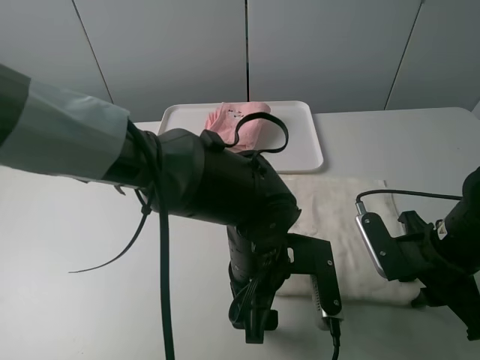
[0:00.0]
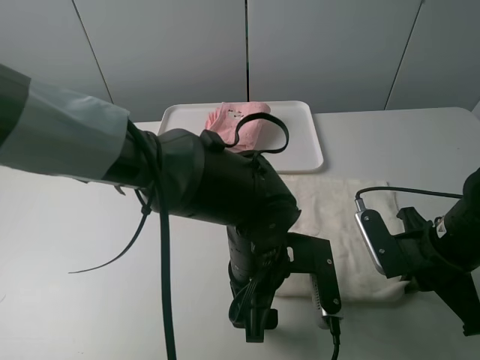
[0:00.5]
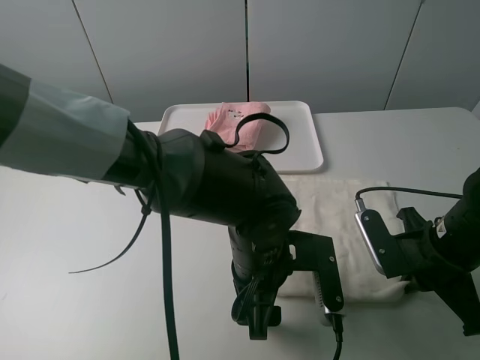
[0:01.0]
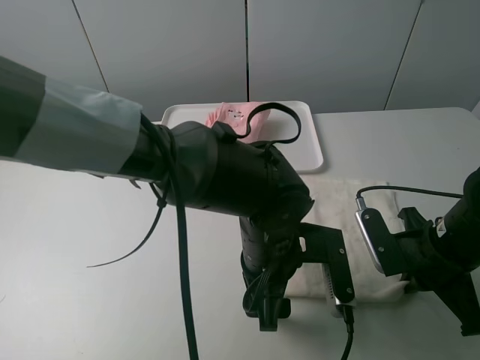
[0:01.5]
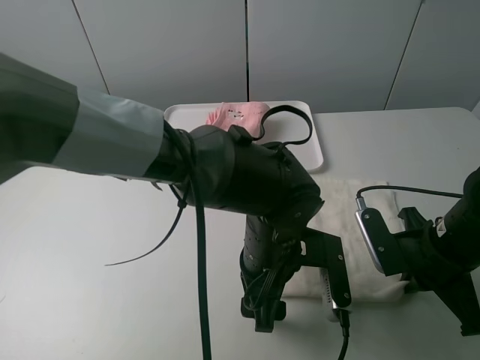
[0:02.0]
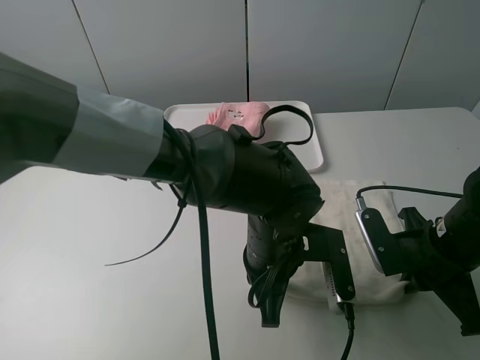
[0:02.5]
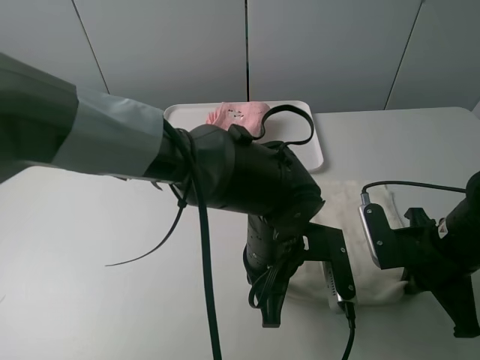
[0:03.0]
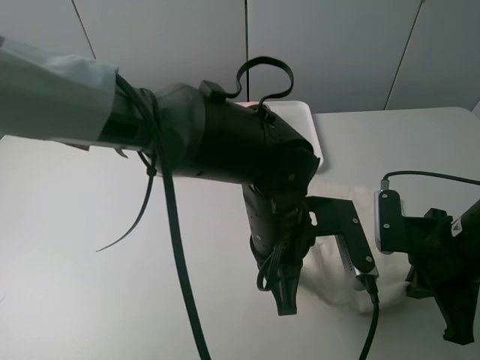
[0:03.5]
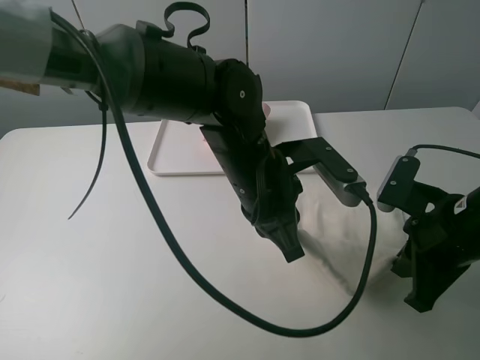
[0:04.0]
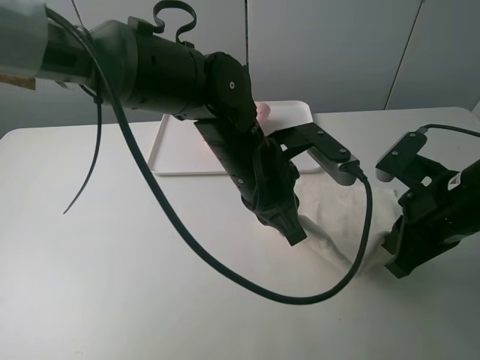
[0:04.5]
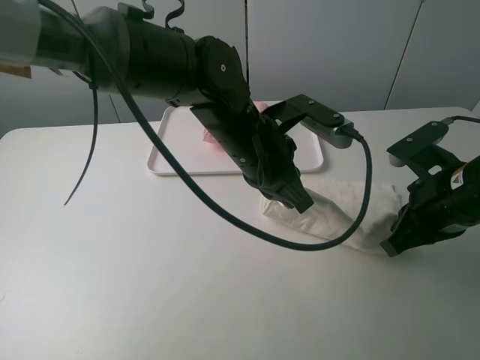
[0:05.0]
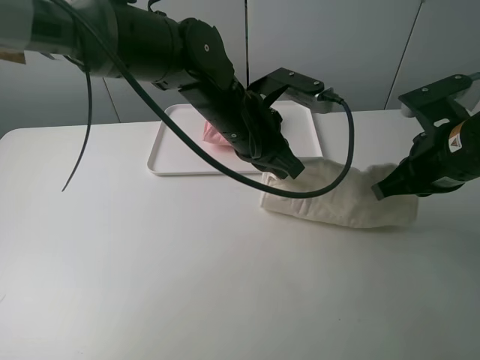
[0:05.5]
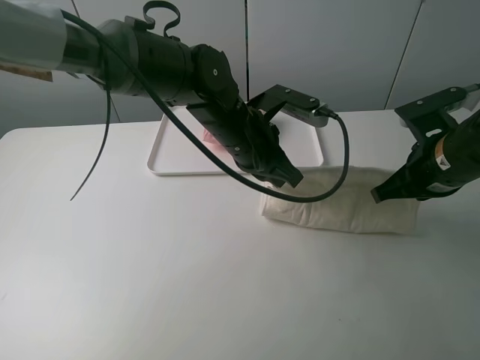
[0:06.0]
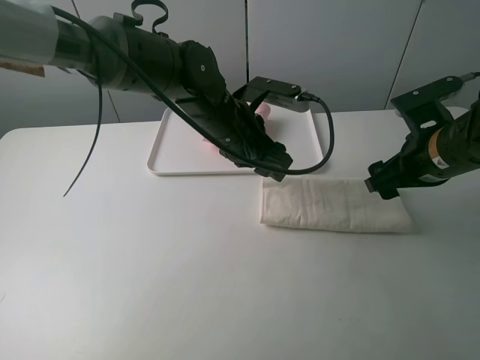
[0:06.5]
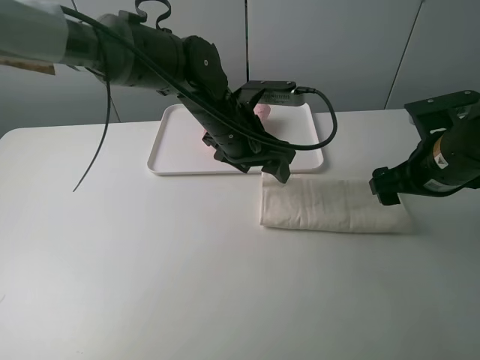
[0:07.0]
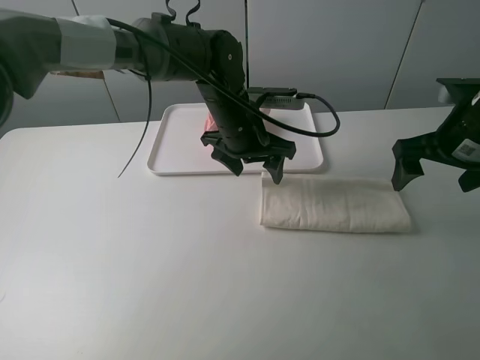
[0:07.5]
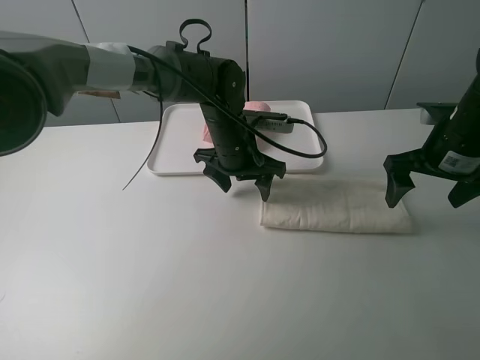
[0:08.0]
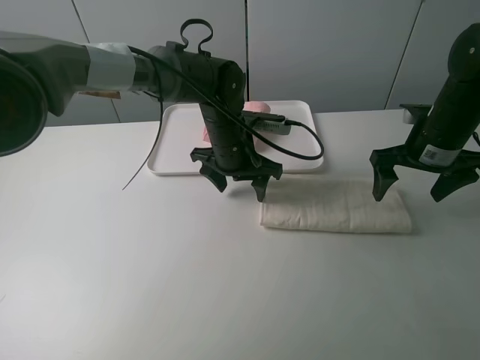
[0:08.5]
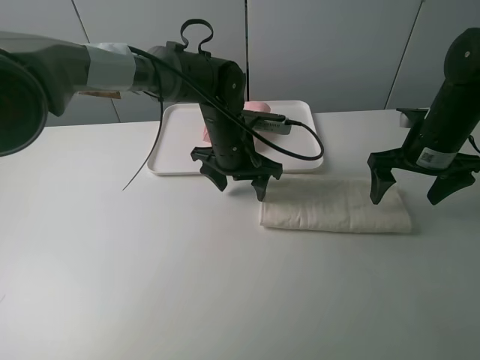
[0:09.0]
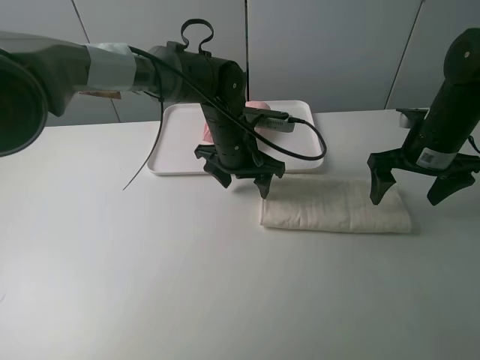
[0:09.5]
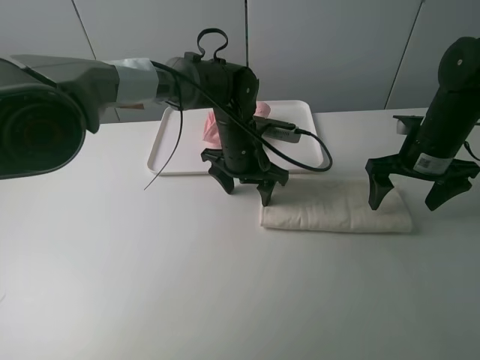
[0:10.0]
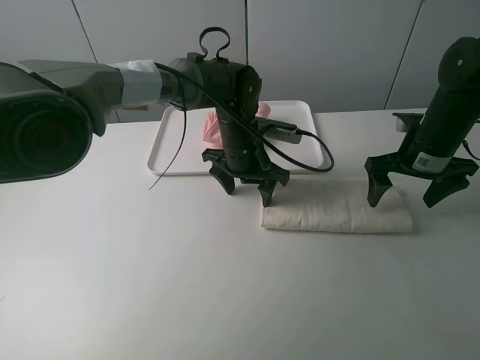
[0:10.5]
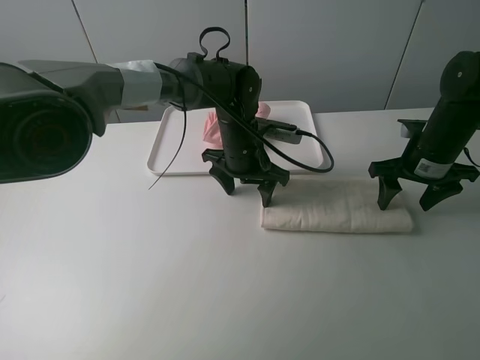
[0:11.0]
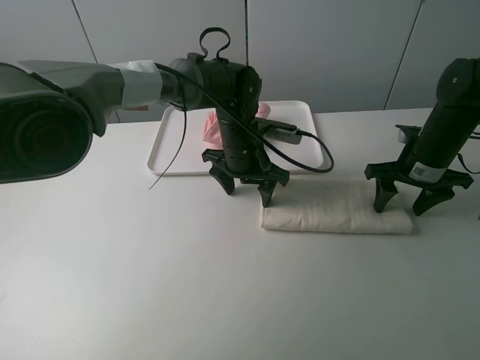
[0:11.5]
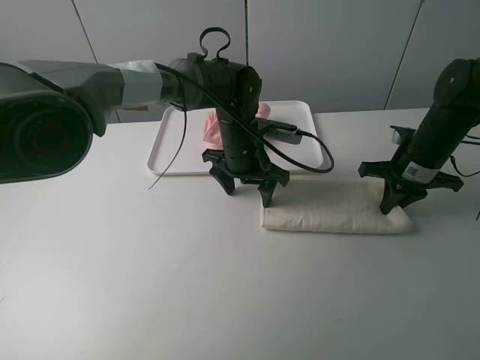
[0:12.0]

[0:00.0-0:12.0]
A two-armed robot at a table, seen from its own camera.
Task of the whole recording: fold one of the towels by two grippers and place it on the tray,then fold another towel by two grippers and place it on the folded towel.
Step, 0:00.0 to 0:02.5: Grasp the white towel with the left gripper.
Step, 0:03.0 to 0:06.5: Fold the white towel upwards with the left gripper.
Step, 0:07.0 to 0:09.0: Press the white towel with the left gripper.
0:00.0 to 0:02.0: There are only small adjustments of the grippers.
0:02.0 to 0:04.0: The left gripper is displaced upward by roughly 5 cm, and closes up.
0:04.0 to 0:06.0: Both grippers travel together forward, roughly 10 cm.
0:06.0 to 0:08.0: The left gripper is displaced forward by some 5 cm, and opens up, while the right gripper ends up roughly 5 cm from where it was, and opens up.
0:08.0 to 0:10.0: The grippers move only a little.
0:10.0 to 0:12.0: The right gripper closes its fingers.

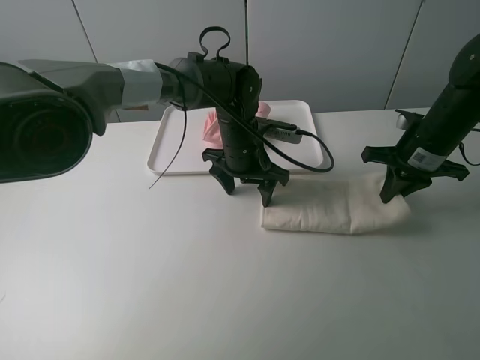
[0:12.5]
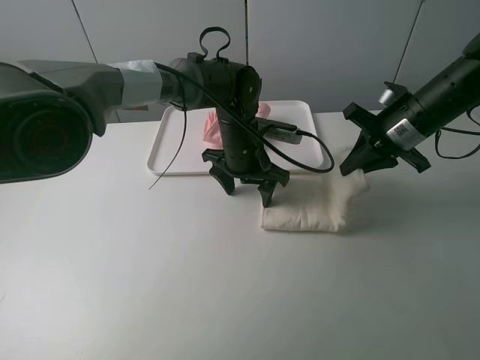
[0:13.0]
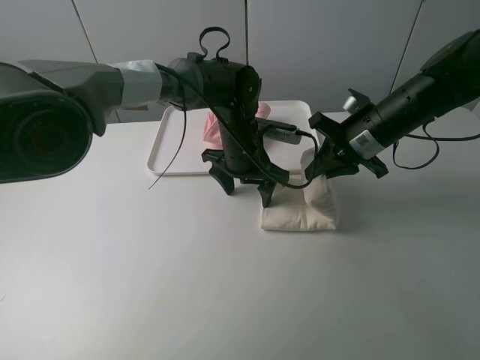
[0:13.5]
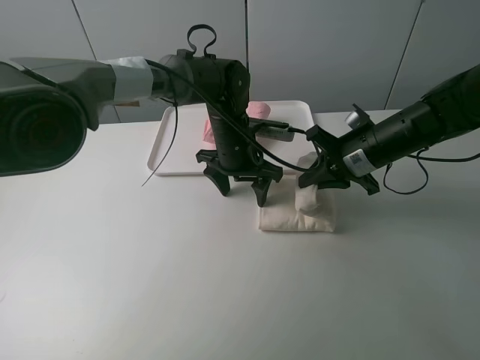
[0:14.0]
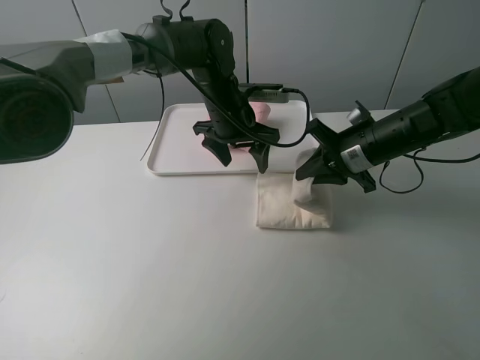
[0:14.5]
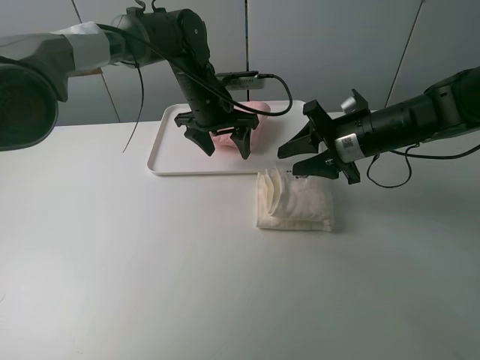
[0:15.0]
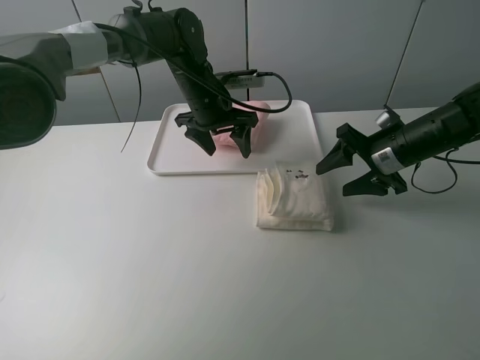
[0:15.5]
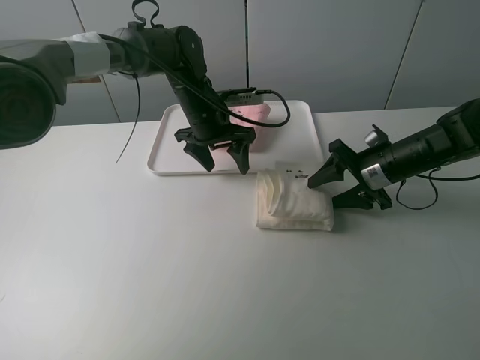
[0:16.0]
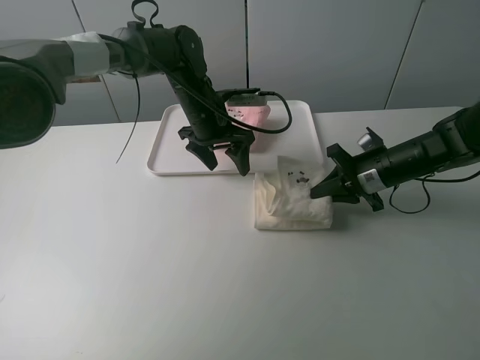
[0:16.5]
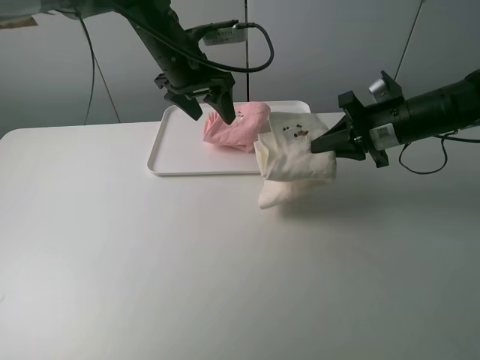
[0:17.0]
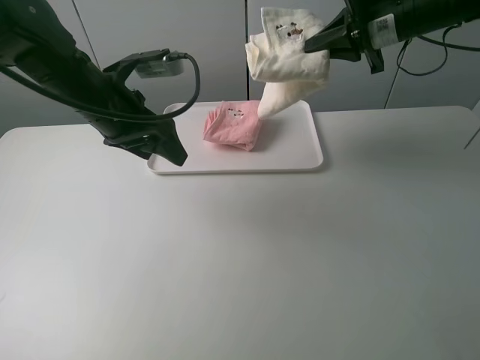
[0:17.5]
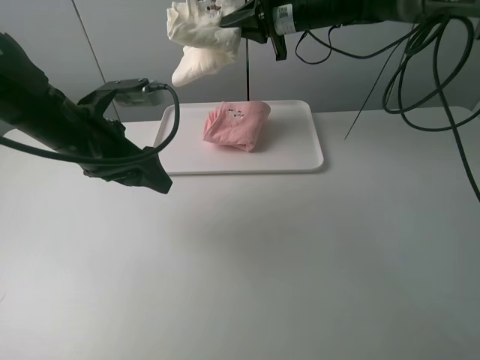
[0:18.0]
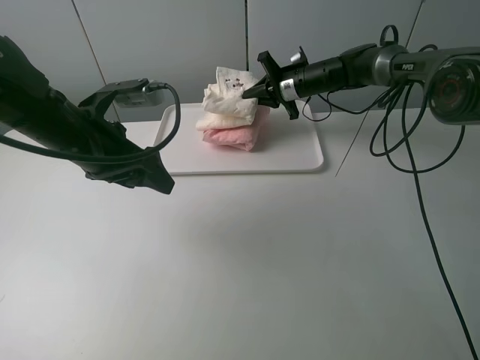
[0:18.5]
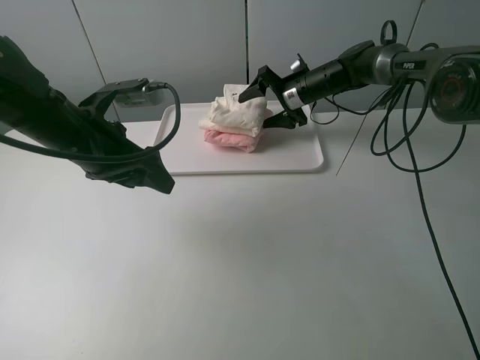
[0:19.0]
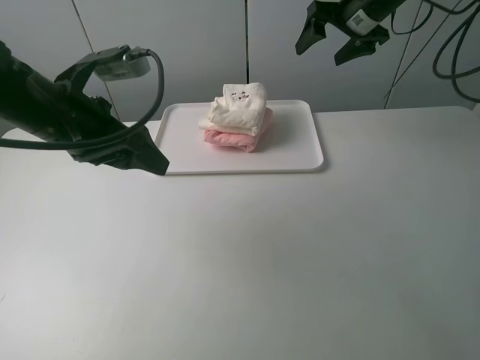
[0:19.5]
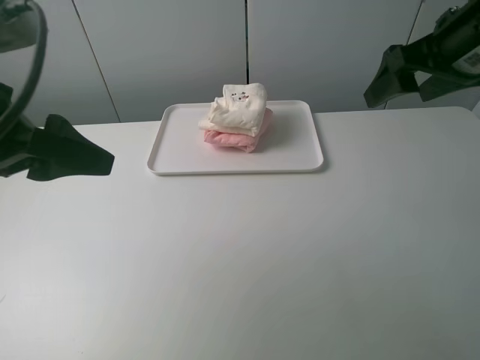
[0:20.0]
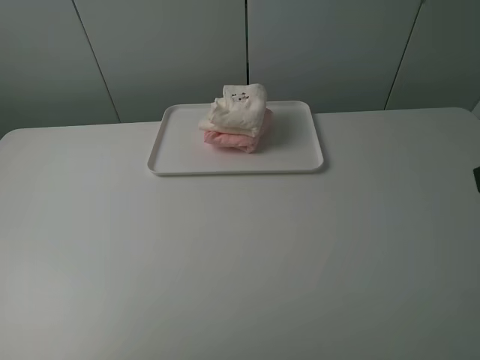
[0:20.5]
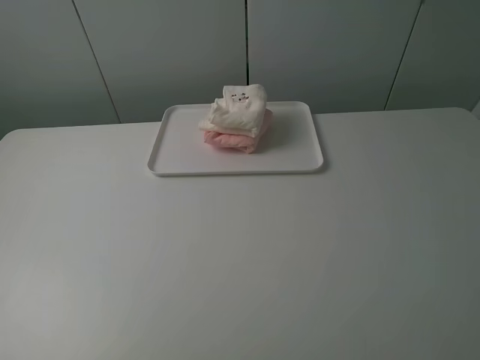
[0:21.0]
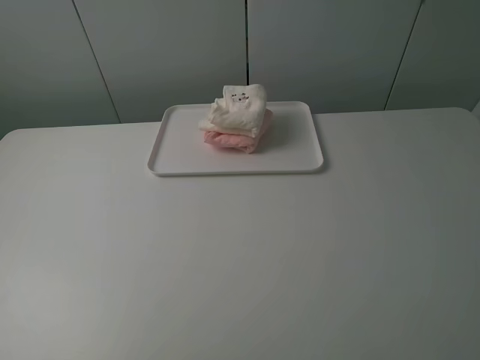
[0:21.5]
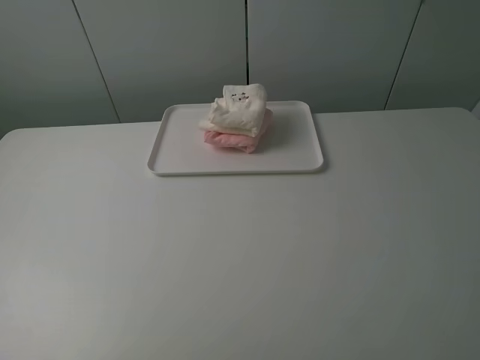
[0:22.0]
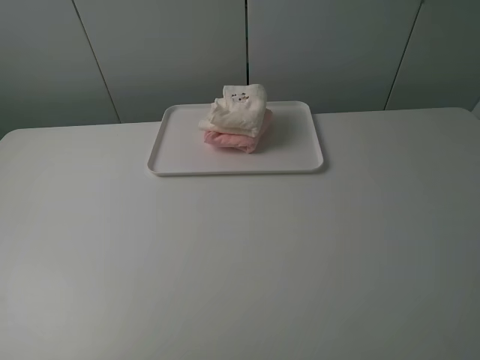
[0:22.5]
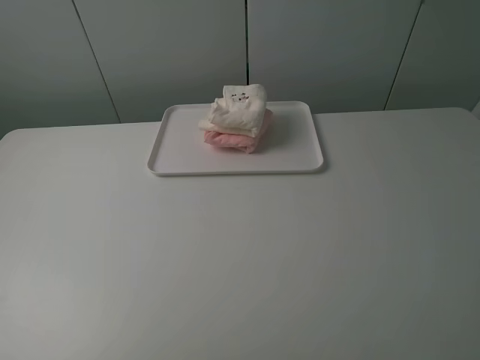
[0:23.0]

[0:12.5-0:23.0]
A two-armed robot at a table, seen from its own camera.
Task of the whole recording: fold one of the towels by two grippers and place it on the tray,then fold another towel by two grippers and place it on the folded towel.
Step, 0:12.5 to 0:15.0: Fold the white towel from right to left with right gripper.
Step, 0:15.5 to 0:16.0: Grasp the white towel with the right gripper.
Step, 0:16.5 to 0:19.0: Place the white towel on the pink towel with the right gripper.
0:12.5 to 0:14.5: The right gripper moves to the left, approximately 10 cm, while the left gripper heads upward, covering about 5 cm.
0:14.5 to 0:16.5: The right gripper shifts some 5 cm downward, and opens and closes again.
0:16.5 to 0:19.0: The left gripper shifts roughly 20 cm backward and to the left, while the right gripper is displaced forward and to the left by some 20 cm, and opens up.
0:19.0 to 0:21.0: The left gripper moves backward, to the left and upward, some 35 cm; the right gripper heads backward, covering roughly 50 cm.

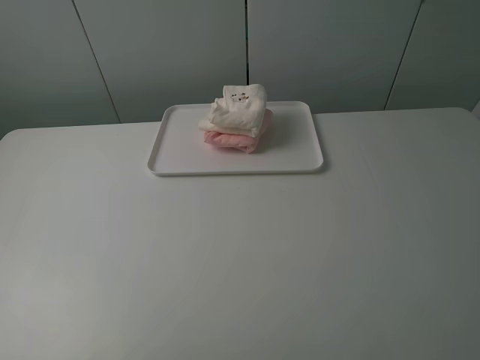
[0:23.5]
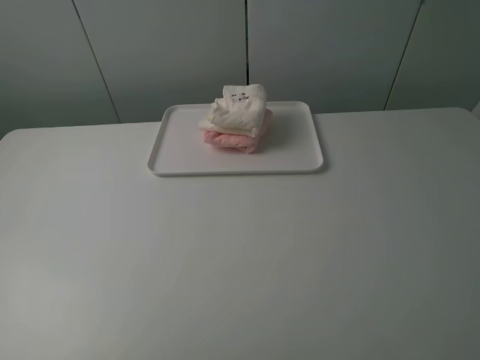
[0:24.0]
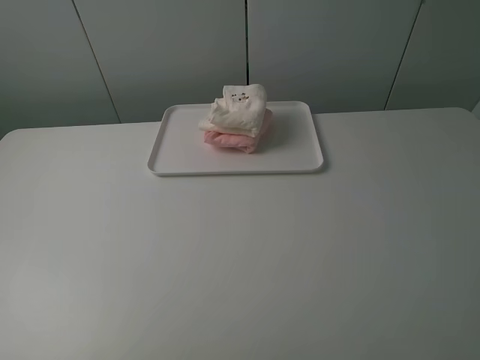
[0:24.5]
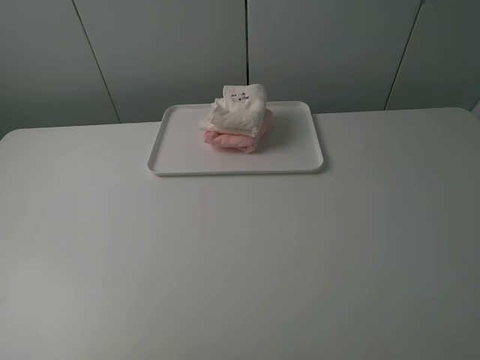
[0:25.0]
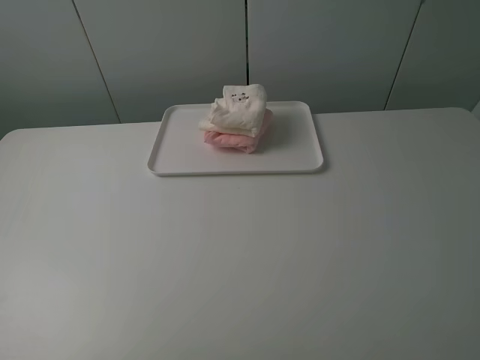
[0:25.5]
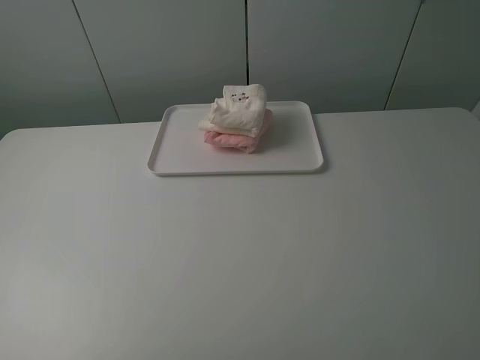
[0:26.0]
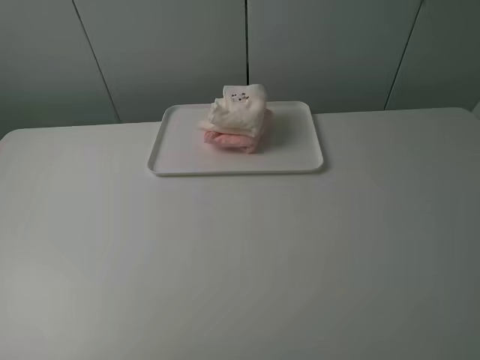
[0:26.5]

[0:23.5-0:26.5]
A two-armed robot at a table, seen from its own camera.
Task of the whole recording: fold one of the towels by two grippers and place it on the tray,then fold another towel by two grippers and place it on the folded towel.
0:23.5 to 0:26.5: Neither gripper changes place.
